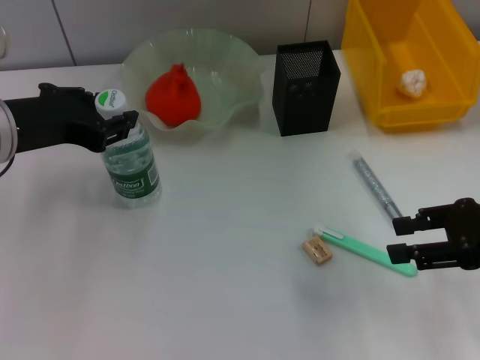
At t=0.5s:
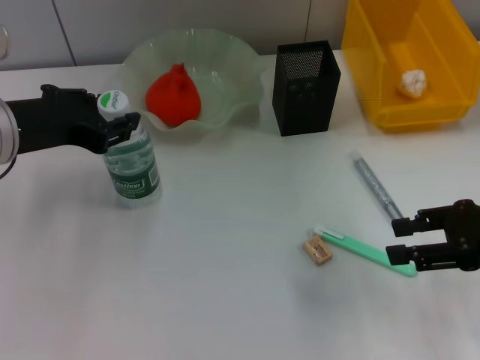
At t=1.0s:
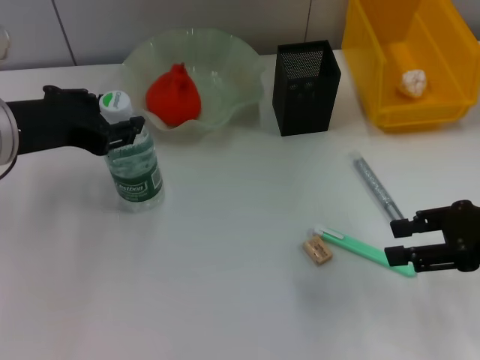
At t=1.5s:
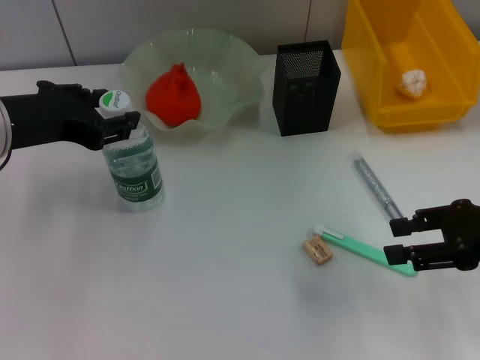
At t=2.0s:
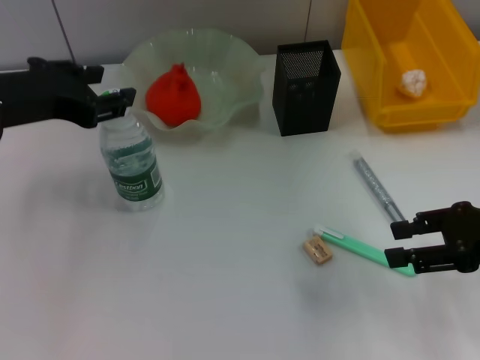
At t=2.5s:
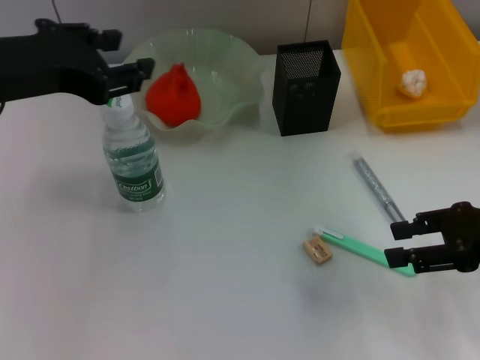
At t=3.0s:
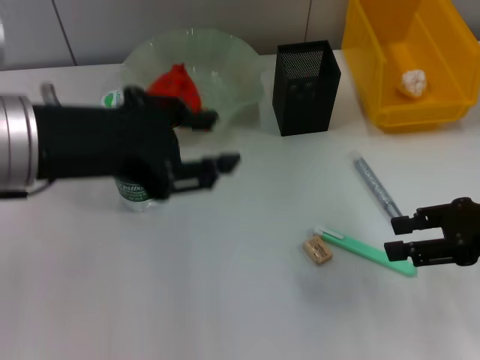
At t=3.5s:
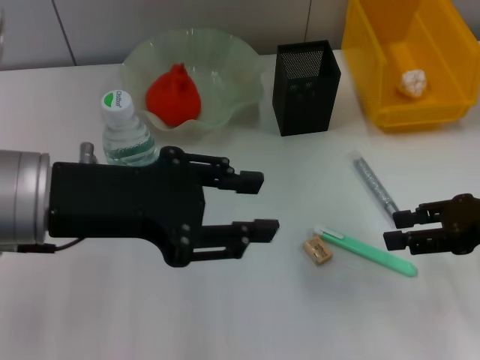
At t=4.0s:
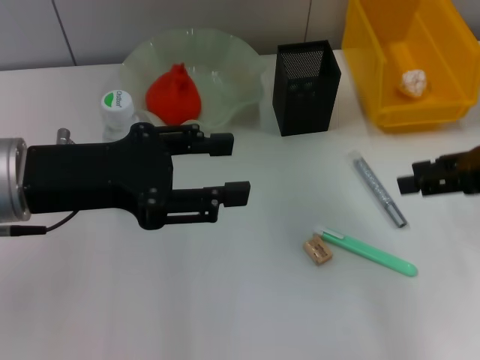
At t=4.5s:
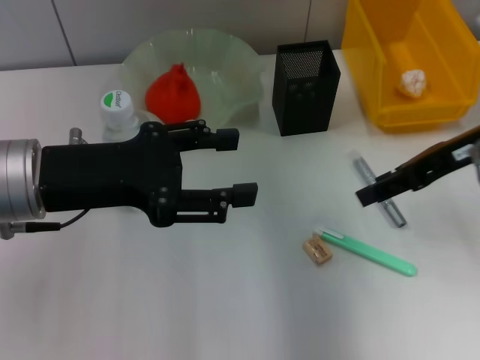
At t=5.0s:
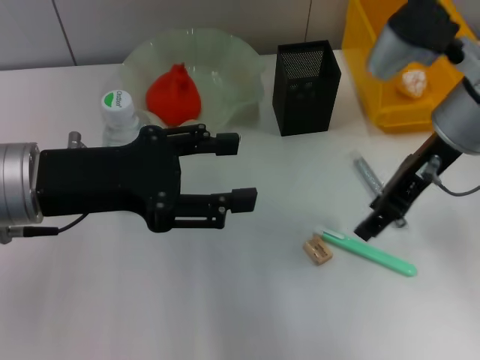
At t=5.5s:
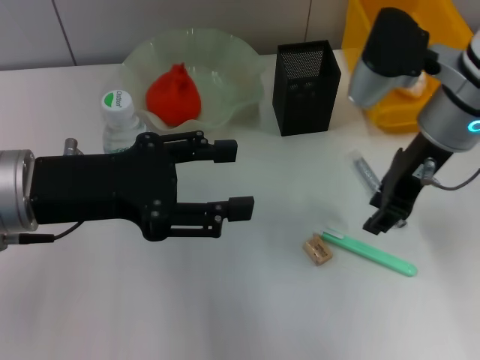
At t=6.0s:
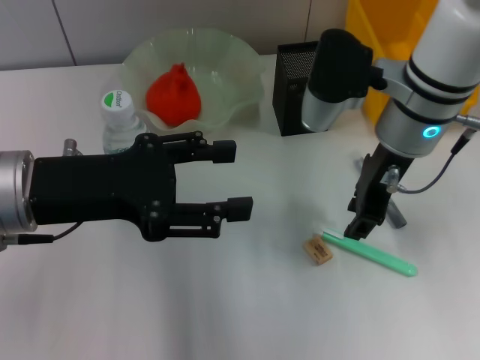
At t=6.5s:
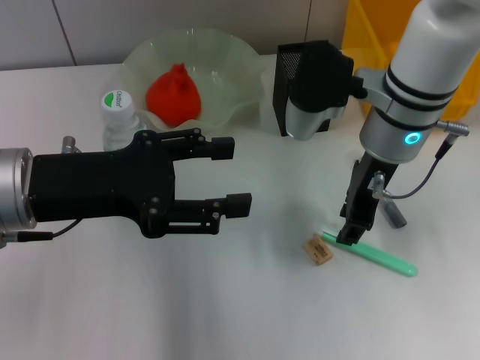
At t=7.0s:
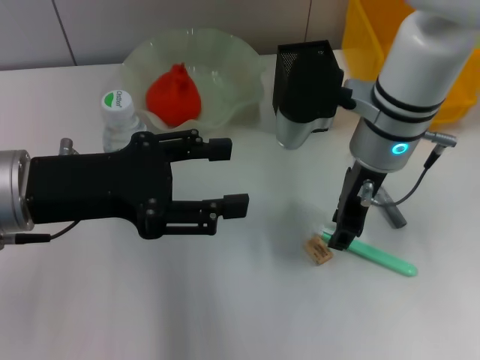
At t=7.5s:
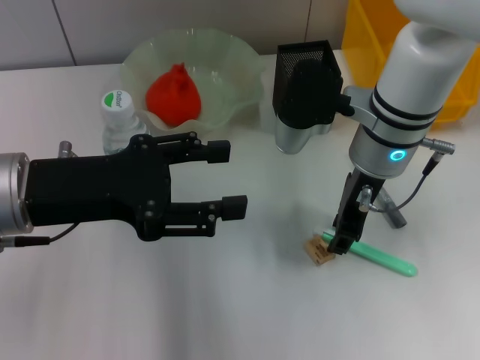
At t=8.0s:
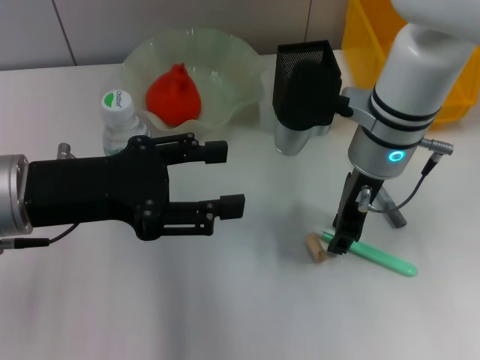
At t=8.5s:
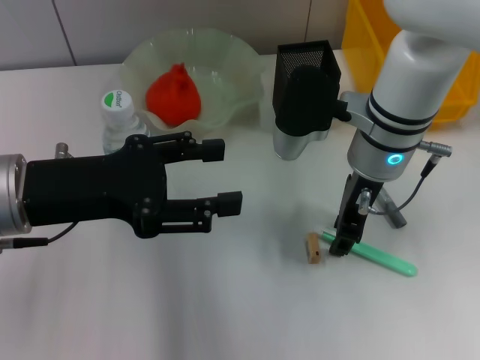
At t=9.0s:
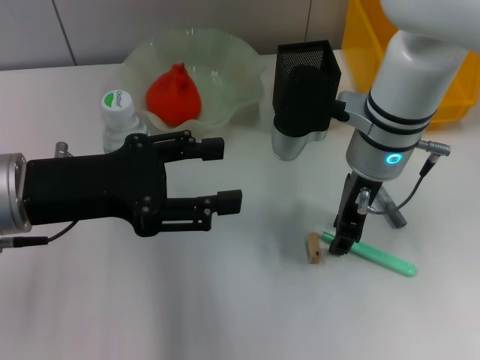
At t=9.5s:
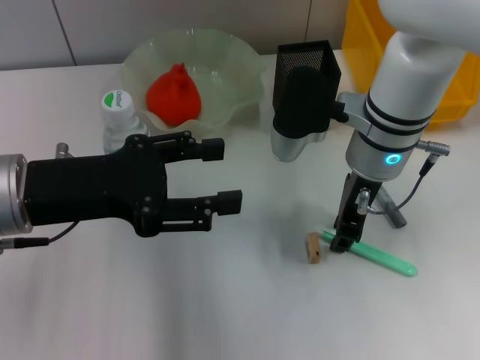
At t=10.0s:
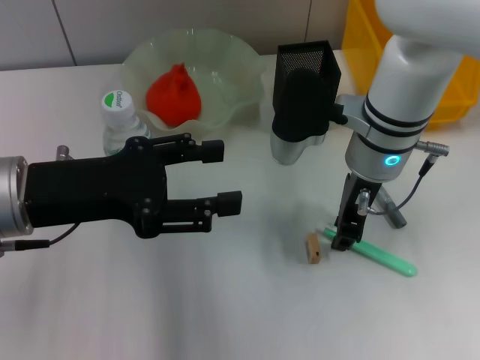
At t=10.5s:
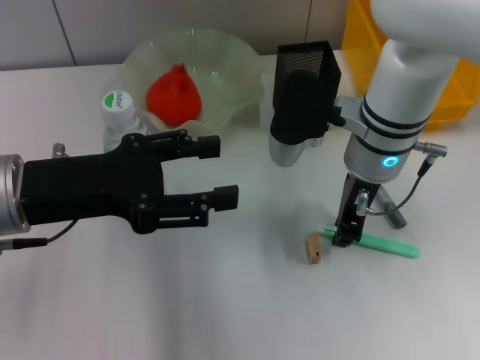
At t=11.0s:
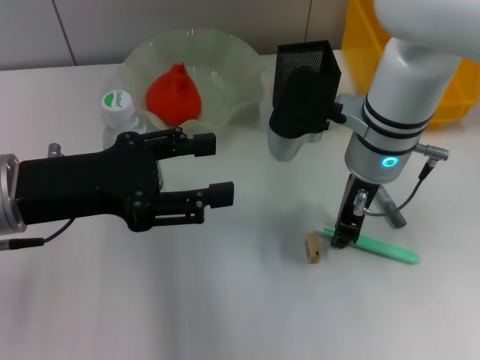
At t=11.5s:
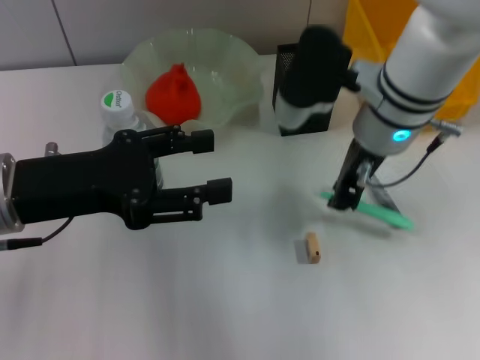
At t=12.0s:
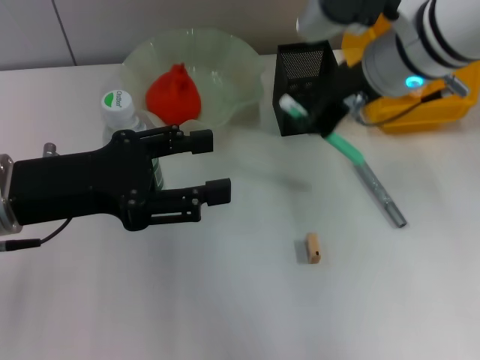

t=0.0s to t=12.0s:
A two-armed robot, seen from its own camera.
Step, t=2.0s to t=10.5s: Grab the blue utility knife with the right hand.
t=0.0s to t=2.0s: The grippers move only a little.
t=2.0s to t=4.0s: The right gripper moves some 5 cm, while the left gripper shifts by some 5 cm.
t=4.0s to t=6.0s: The right gripper moves to the left and forward, about 20 cm.
t=6.0s to t=8.0s: The grippers make only small movements.
t=8.0s to t=10.0s: Both grippers stay put.
t=10.0s to t=12.0s: The right gripper is displaced upward by roughly 10 cm.

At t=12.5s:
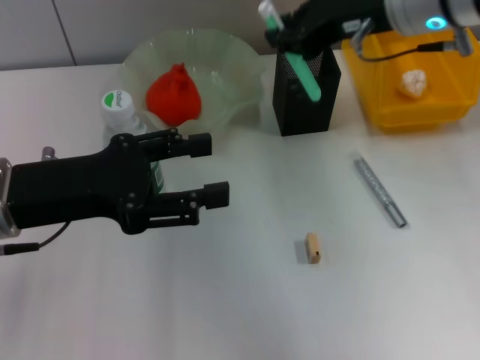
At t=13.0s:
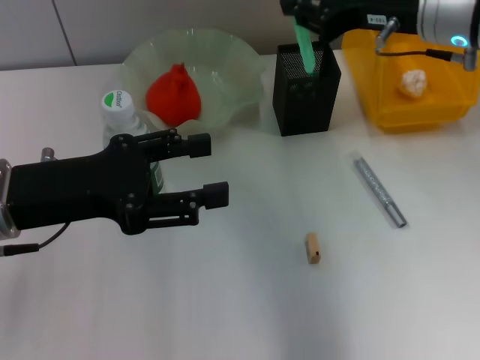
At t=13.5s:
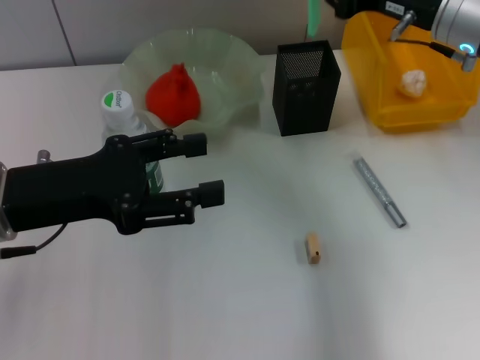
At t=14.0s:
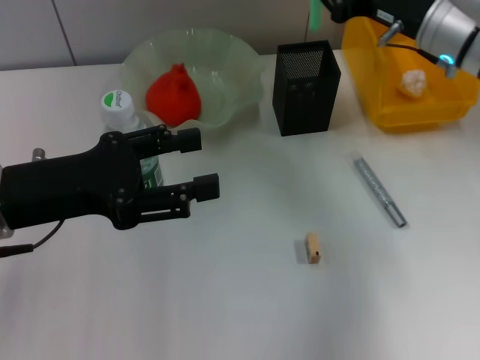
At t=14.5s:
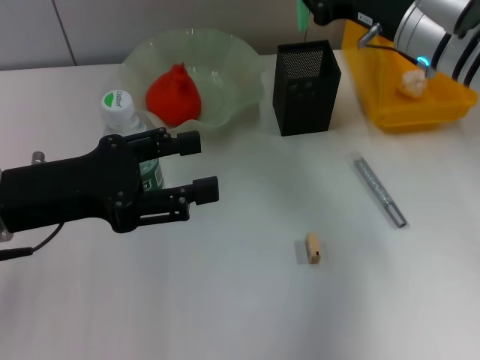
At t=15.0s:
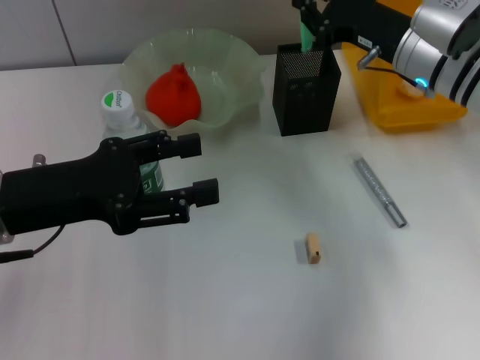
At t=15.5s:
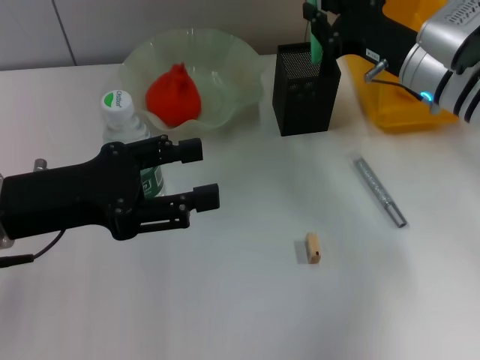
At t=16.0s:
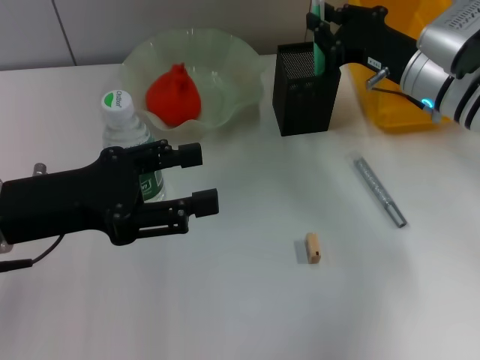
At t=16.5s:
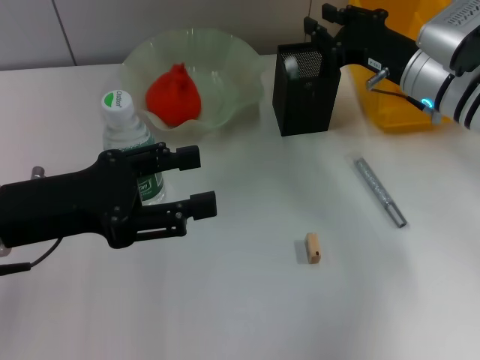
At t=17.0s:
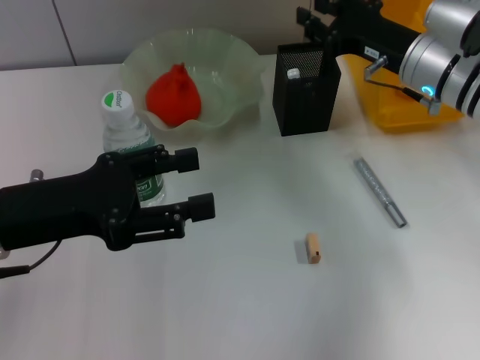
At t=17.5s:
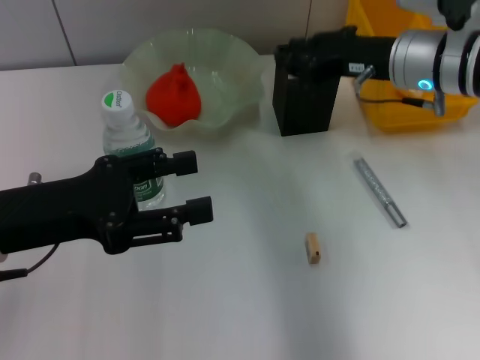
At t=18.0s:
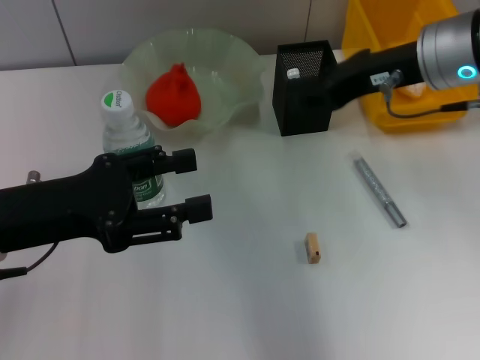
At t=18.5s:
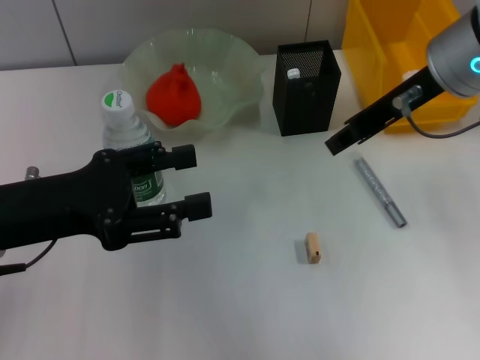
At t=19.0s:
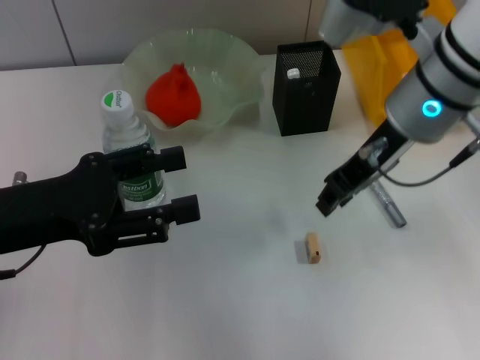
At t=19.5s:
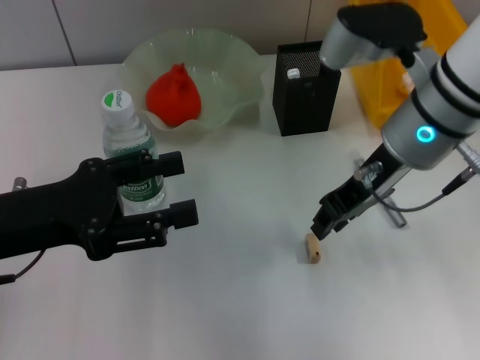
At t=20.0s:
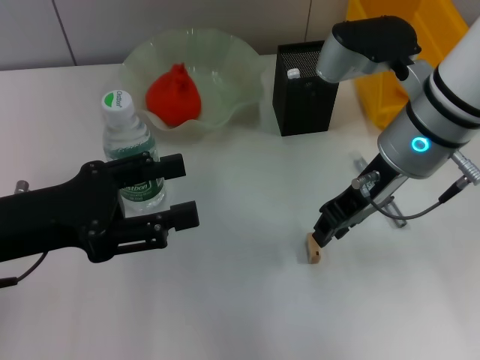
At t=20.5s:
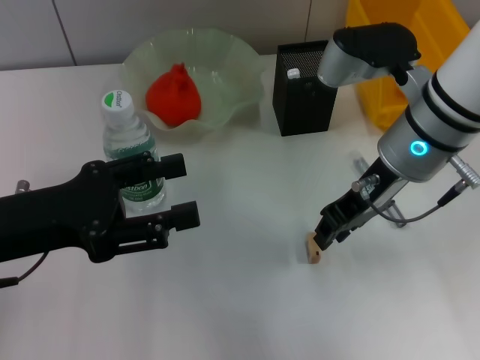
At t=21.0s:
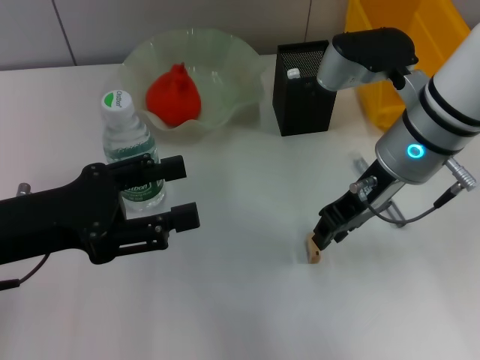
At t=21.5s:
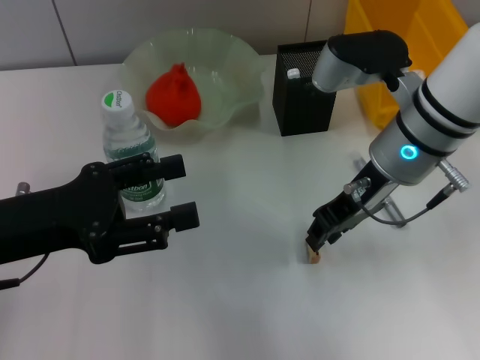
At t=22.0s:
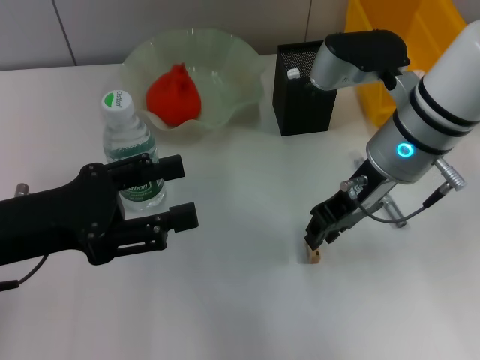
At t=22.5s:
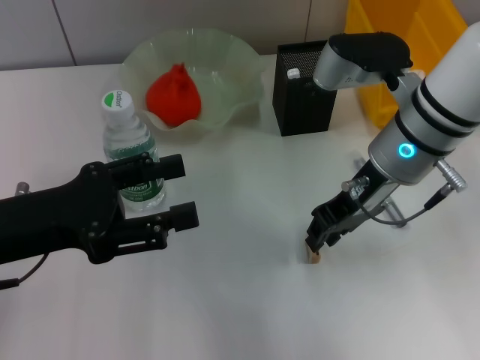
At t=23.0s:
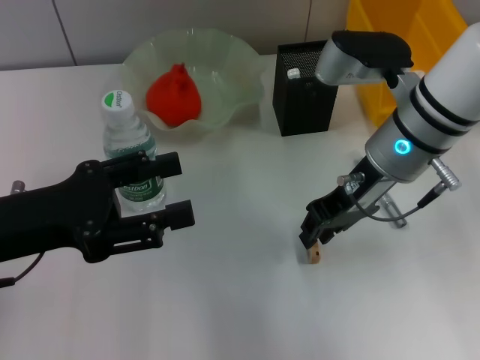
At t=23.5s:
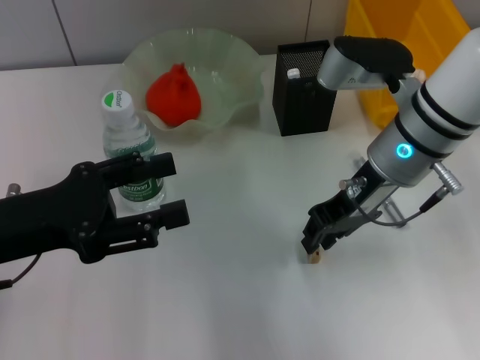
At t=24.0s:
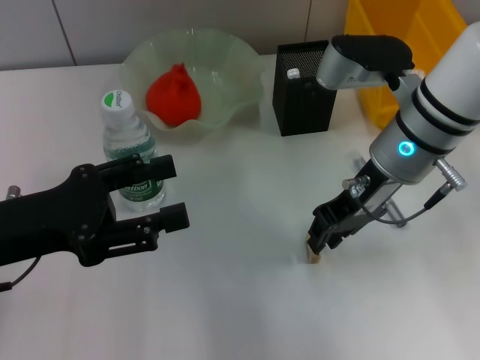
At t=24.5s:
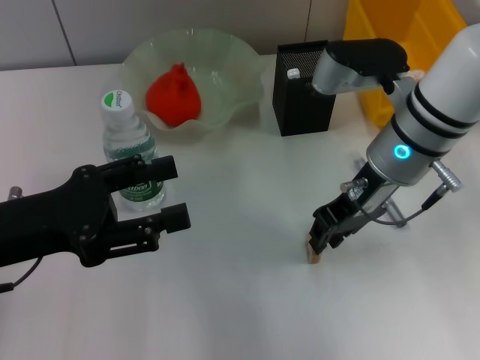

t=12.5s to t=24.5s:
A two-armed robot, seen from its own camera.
Step, t=12.5s to t=17.0s: Place the blue utility knife into the pen holder with the right hand.
t=12.5s to t=14.5s: The right gripper moves downward, approximately 10 cm.
t=14.5s to t=16.5s: The grippers stay close to where they were, moving slightly.
t=16.5s to t=18.5s: The right gripper travels upward by approximately 15 cm.
t=18.5s to t=20.5s: The right gripper moves downward, some 10 cm.
t=20.5s to t=22.5s: Both grippers stay about where they are.
t=22.5s to t=24.5s: Both grippers stay about where they are.

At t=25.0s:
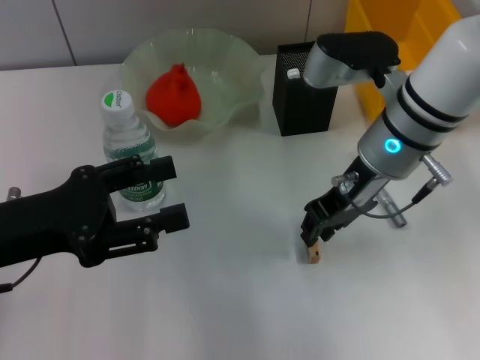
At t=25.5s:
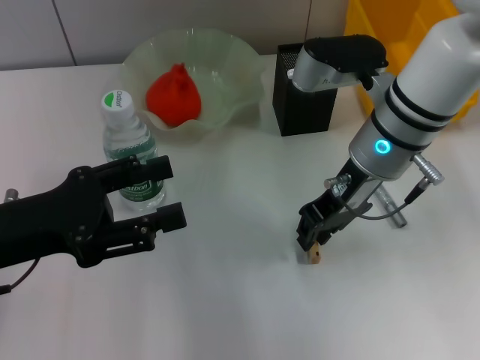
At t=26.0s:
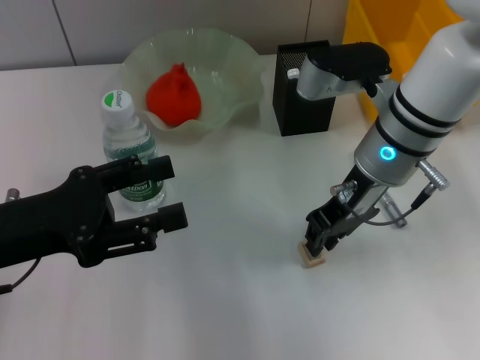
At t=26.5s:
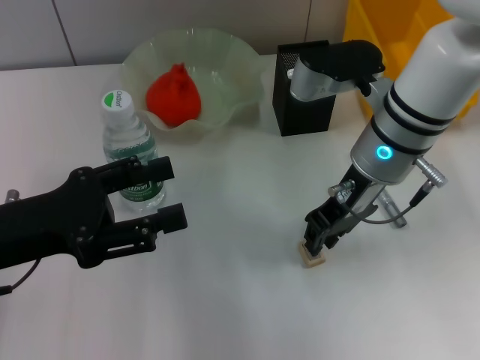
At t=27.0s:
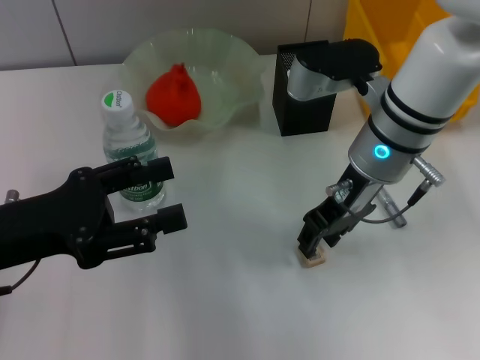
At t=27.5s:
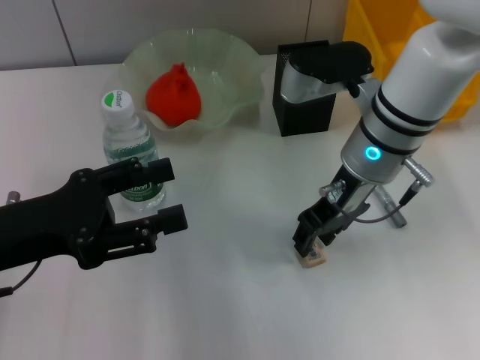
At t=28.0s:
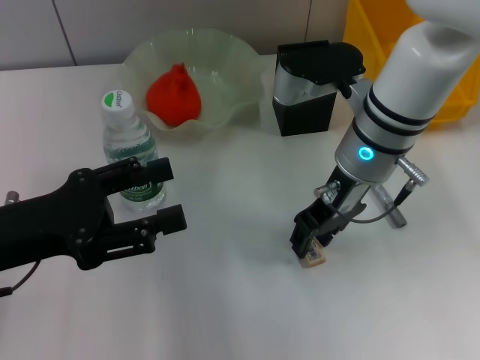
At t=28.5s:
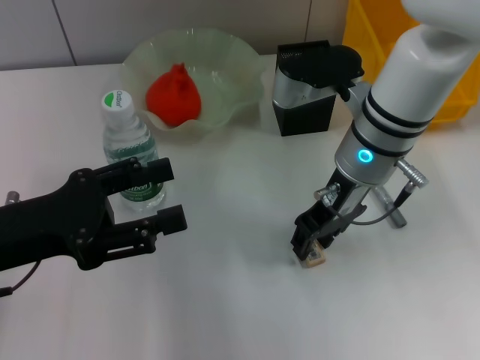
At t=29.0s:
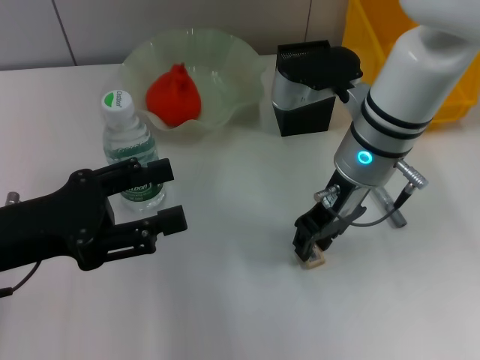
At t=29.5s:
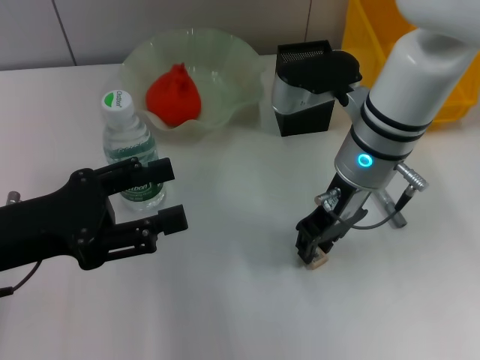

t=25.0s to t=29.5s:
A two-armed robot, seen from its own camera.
t=25.0s to t=29.5s: The grippers move only a little.
